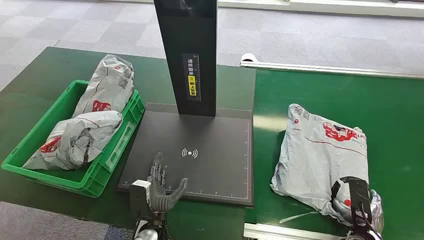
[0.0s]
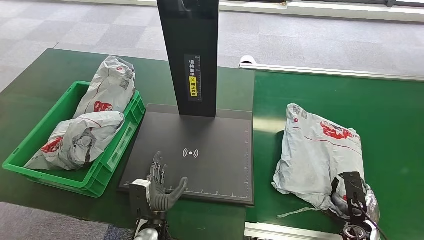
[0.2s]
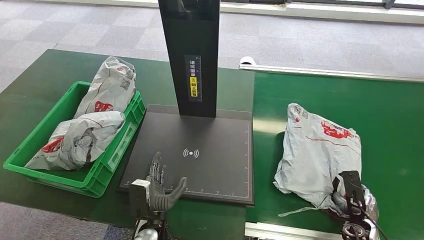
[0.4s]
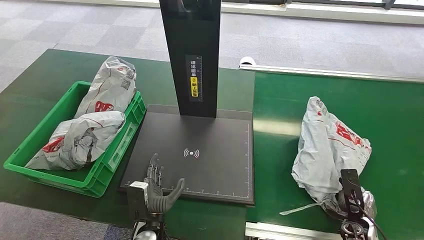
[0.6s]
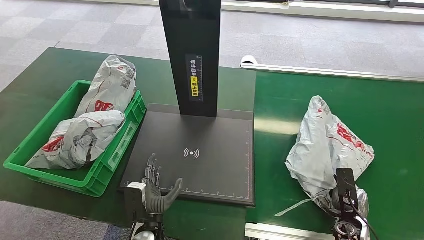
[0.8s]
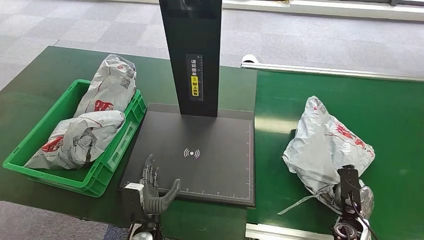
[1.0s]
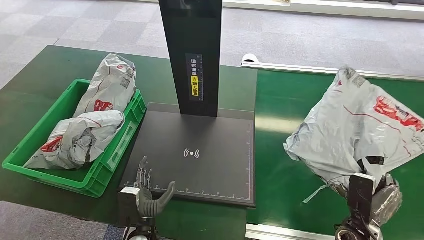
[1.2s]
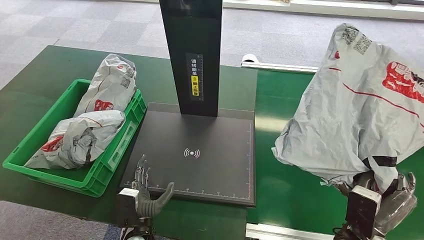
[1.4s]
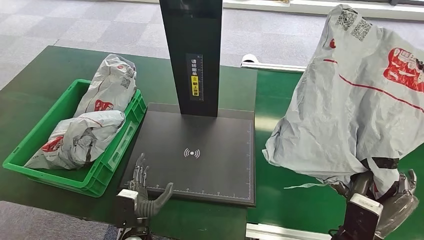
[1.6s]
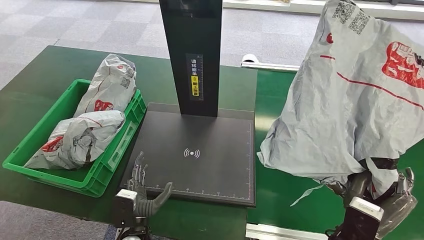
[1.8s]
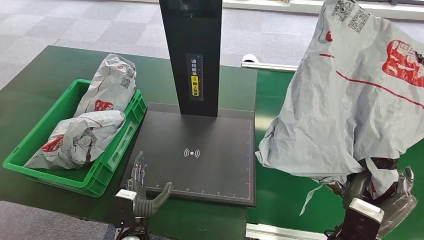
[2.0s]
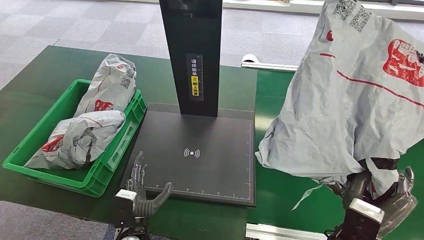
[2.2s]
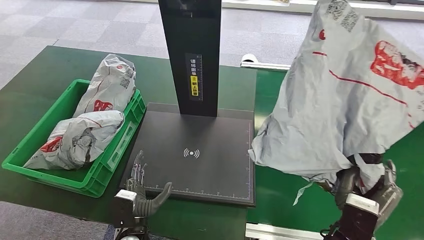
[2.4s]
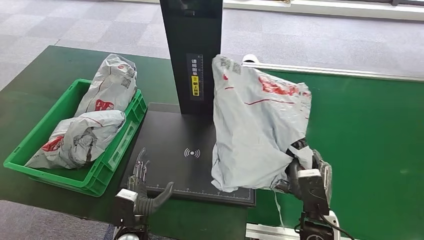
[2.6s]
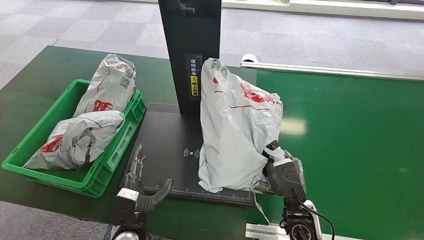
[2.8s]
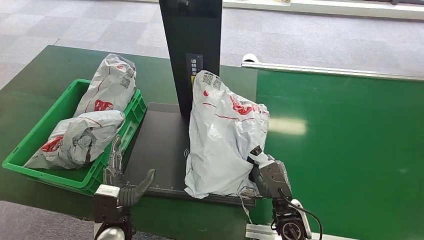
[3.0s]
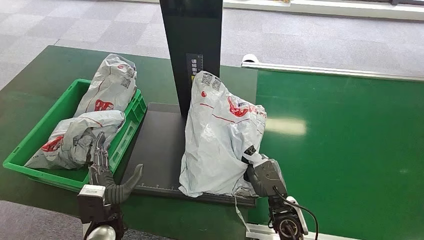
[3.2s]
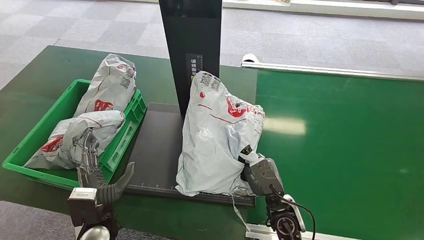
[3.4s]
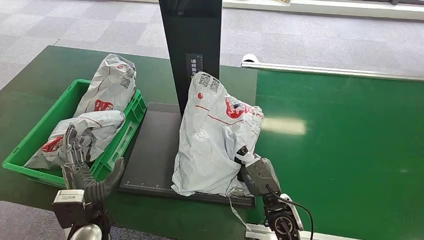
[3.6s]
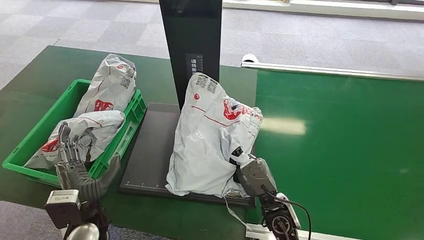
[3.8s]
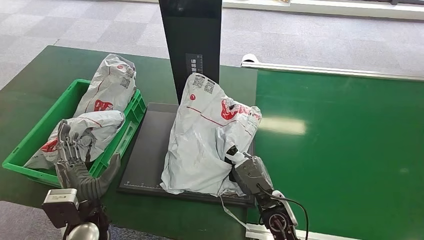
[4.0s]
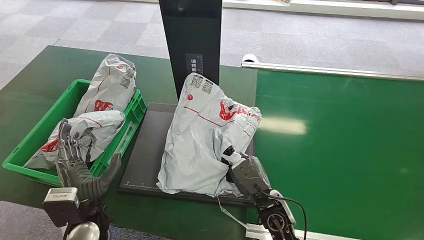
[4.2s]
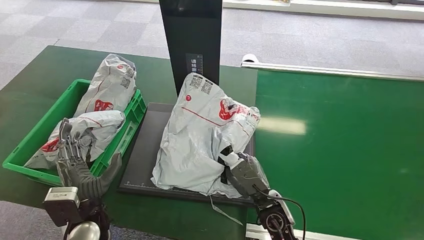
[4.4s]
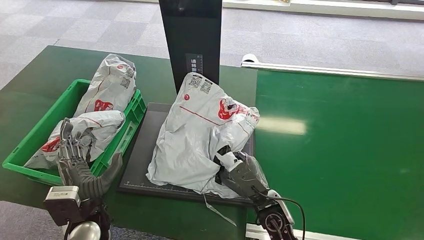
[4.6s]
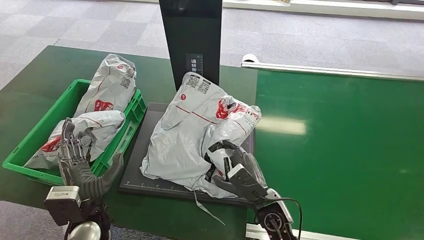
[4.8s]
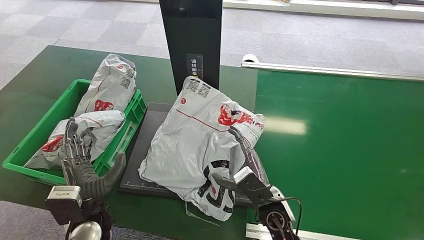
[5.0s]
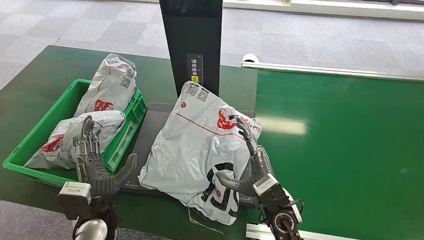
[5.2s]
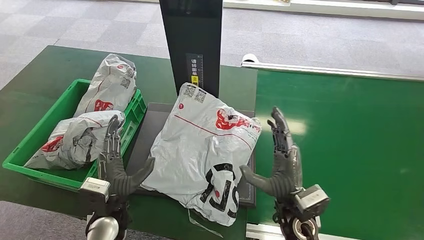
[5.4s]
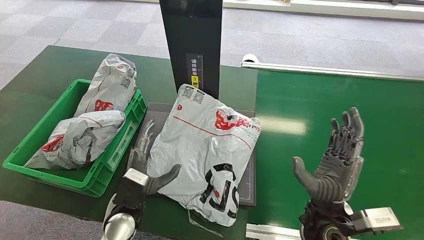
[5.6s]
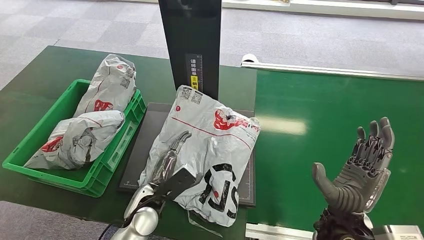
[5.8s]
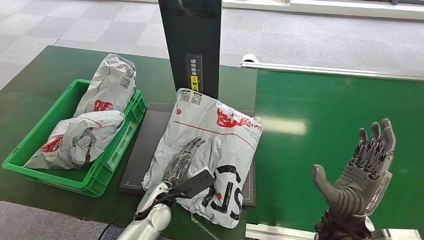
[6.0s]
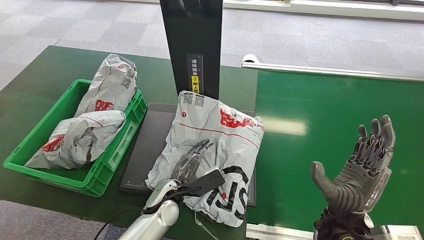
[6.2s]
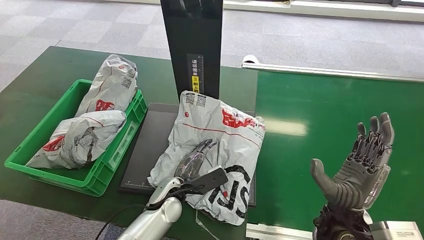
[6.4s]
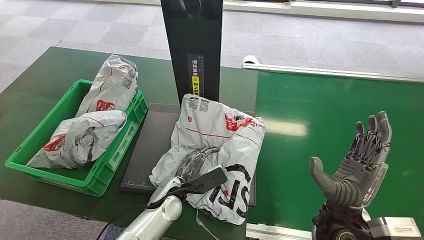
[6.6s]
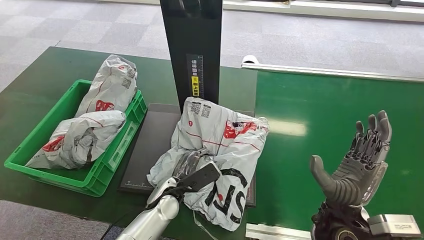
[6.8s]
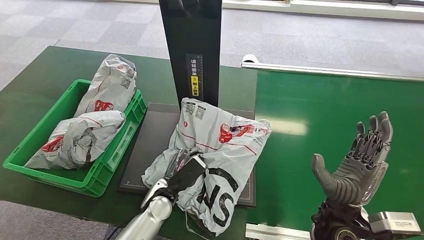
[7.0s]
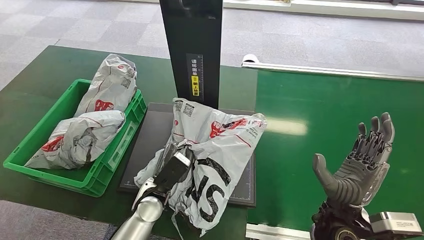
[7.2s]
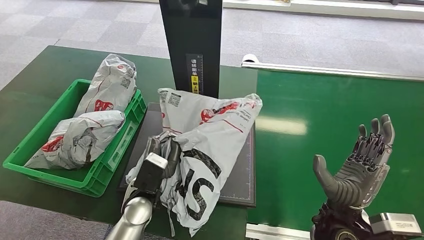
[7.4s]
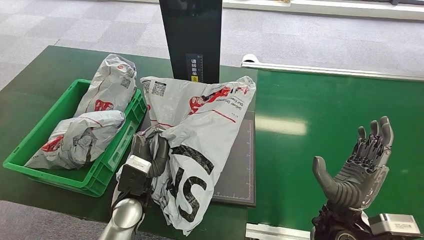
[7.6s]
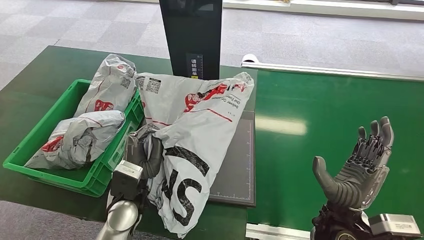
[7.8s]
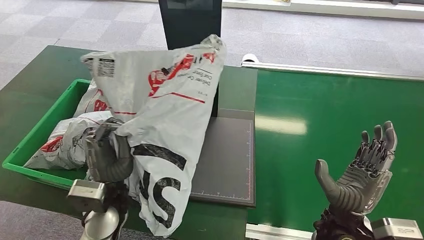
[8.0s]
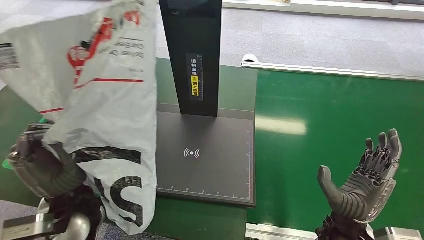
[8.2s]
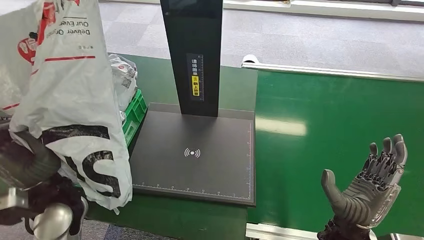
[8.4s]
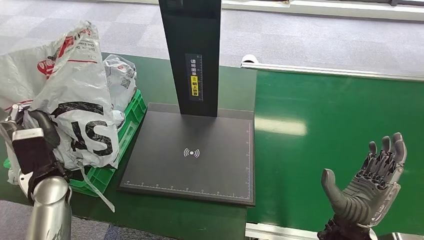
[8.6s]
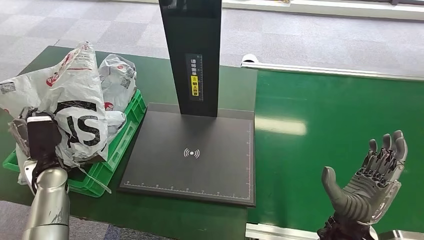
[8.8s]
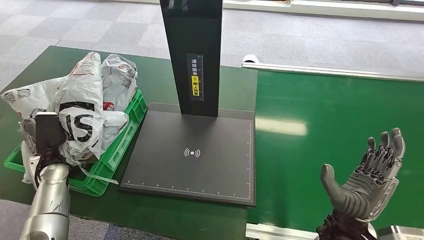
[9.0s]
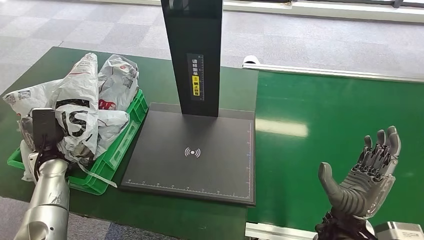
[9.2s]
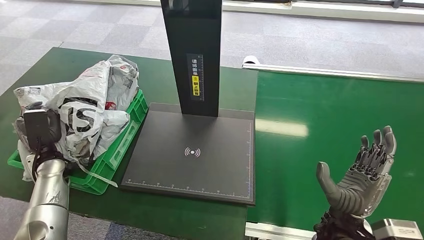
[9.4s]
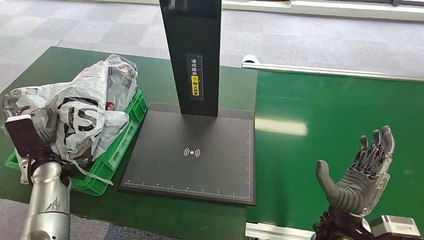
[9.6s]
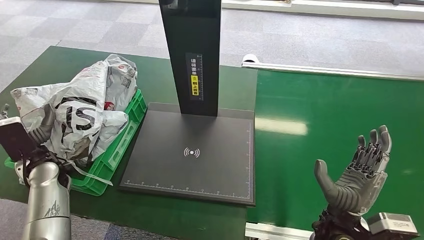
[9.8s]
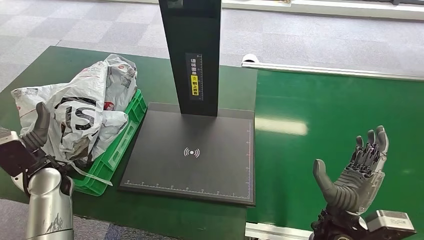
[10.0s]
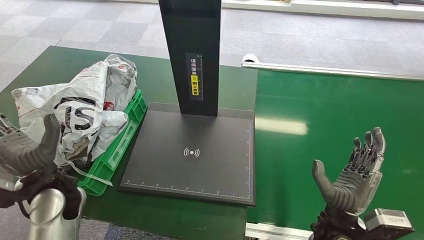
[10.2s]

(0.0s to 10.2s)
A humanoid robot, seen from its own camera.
Task of the whole recording: Weigh the package on the weighing device and place it in the left basket.
Step, 0.0s - 2.0s: Pick up the package from the conveyor belt.
Step, 2.2s - 5.6s: Place the package onto the inbound machine.
Step, 5.8s - 7.8s: Pick up the package from the inbound machine.
Step, 8.2s - 10.2s: Place the package into the parcel locker.
3.0s - 4.4s: The left hand shifts approximately 5 cm upward.
4.4s - 5.8s: The left hand heads to the right, covering some 10 cm; the right hand goes some 15 cm to the right and upward.
8.8s - 10.2s: The left hand moves to the right, upward and backward, about 10 cm.
